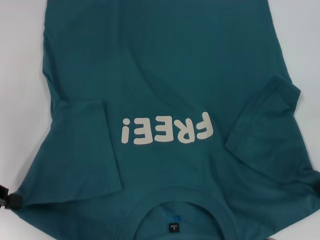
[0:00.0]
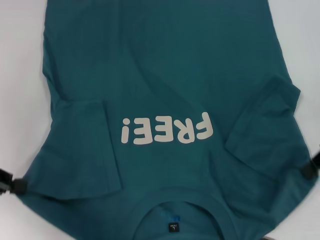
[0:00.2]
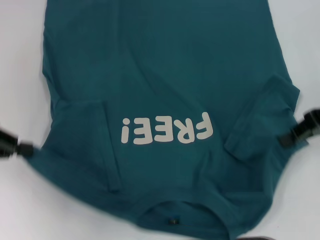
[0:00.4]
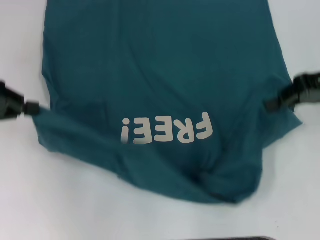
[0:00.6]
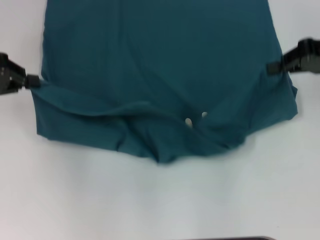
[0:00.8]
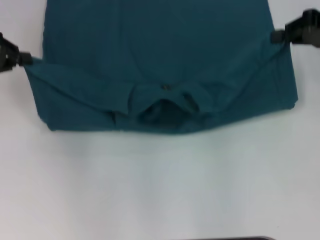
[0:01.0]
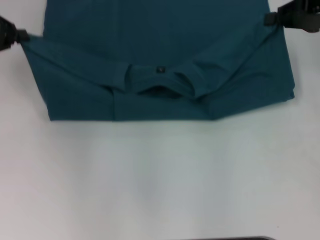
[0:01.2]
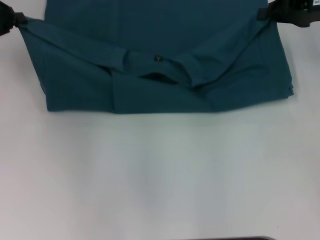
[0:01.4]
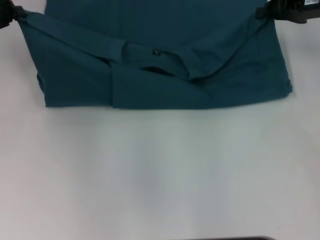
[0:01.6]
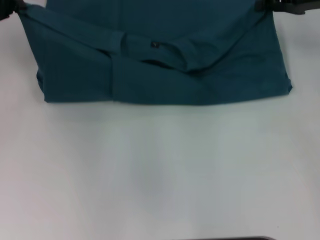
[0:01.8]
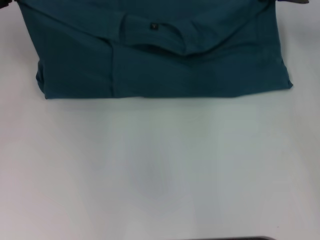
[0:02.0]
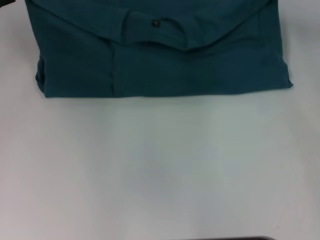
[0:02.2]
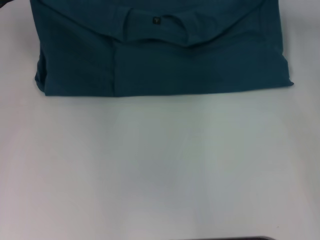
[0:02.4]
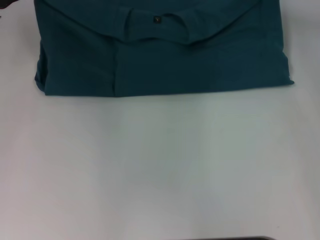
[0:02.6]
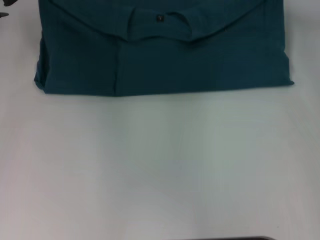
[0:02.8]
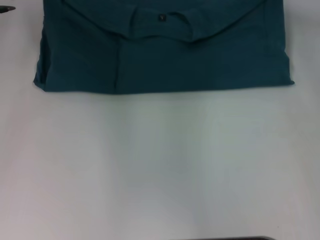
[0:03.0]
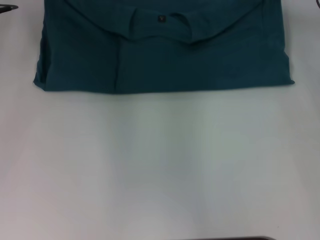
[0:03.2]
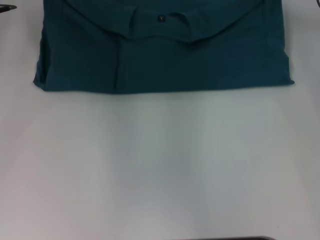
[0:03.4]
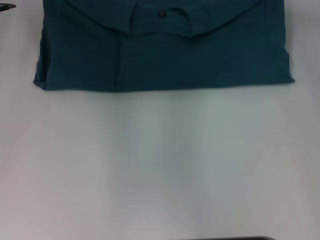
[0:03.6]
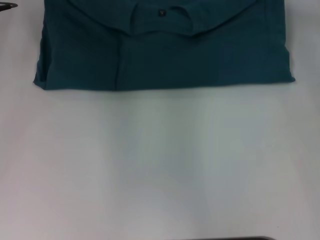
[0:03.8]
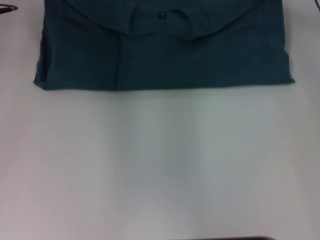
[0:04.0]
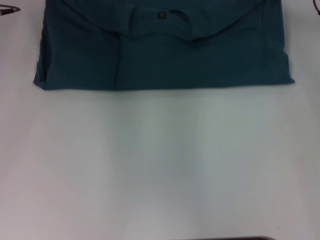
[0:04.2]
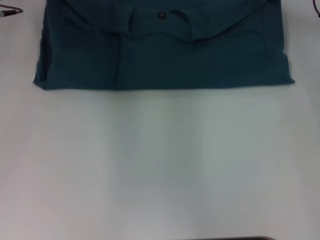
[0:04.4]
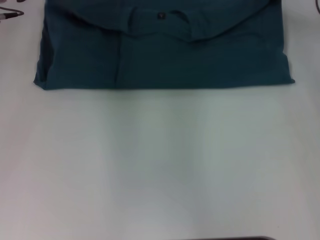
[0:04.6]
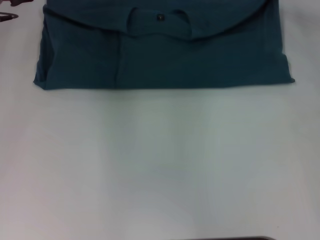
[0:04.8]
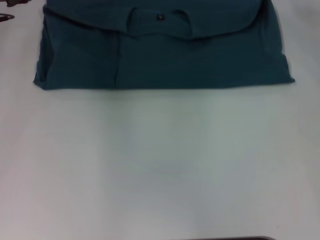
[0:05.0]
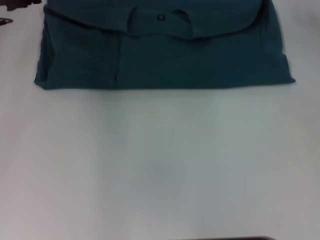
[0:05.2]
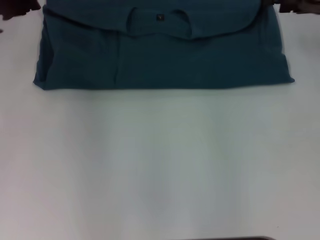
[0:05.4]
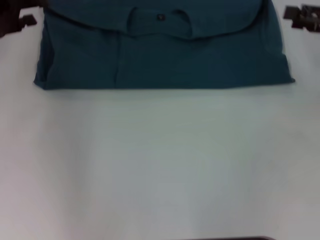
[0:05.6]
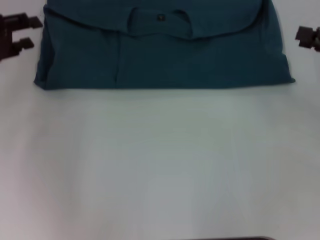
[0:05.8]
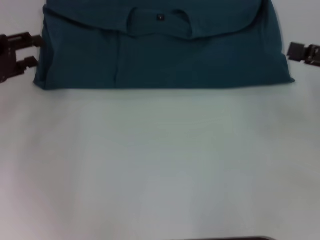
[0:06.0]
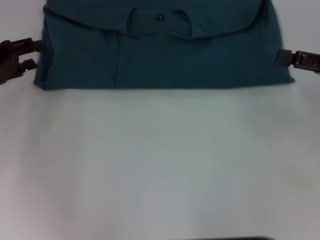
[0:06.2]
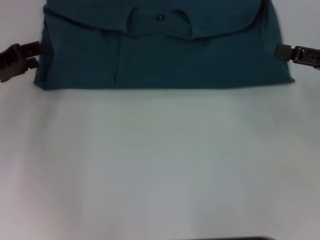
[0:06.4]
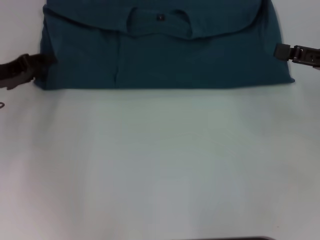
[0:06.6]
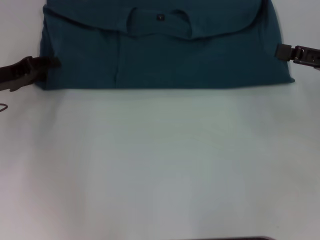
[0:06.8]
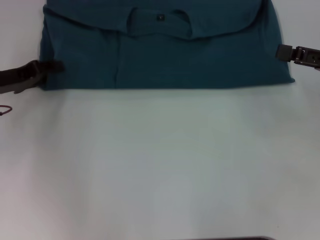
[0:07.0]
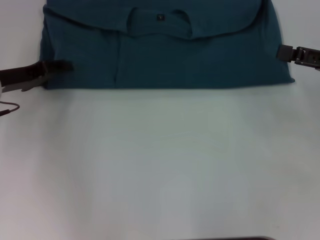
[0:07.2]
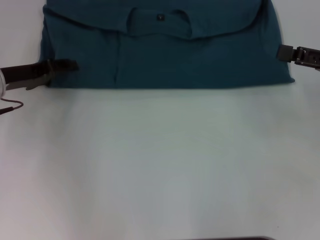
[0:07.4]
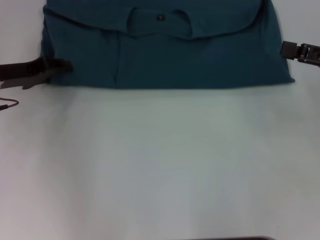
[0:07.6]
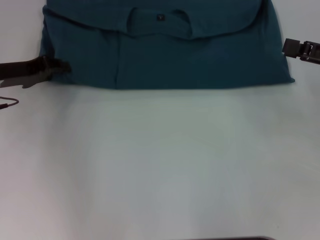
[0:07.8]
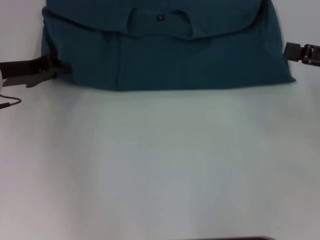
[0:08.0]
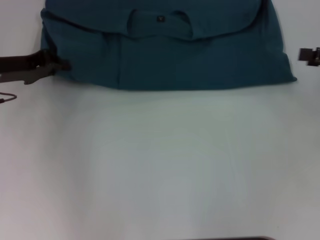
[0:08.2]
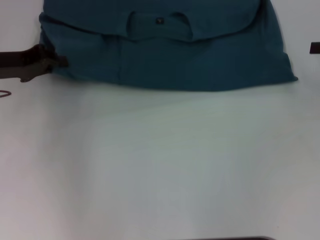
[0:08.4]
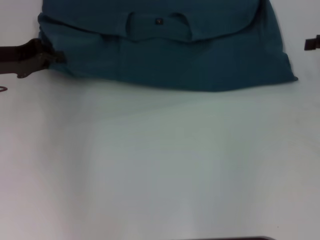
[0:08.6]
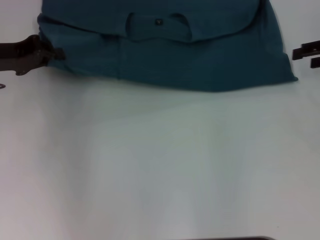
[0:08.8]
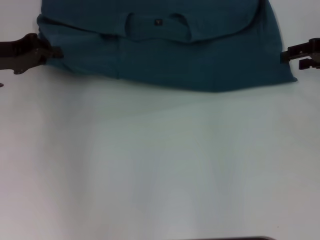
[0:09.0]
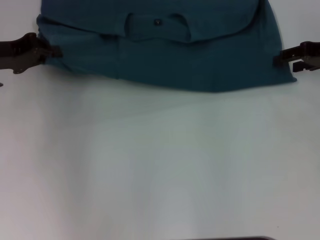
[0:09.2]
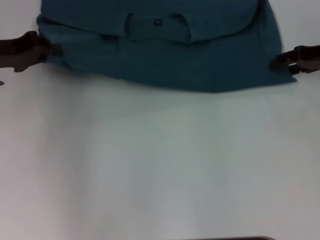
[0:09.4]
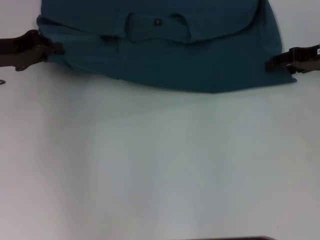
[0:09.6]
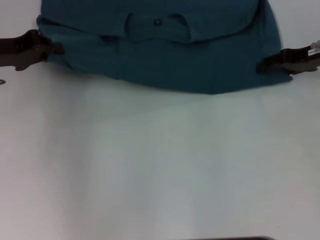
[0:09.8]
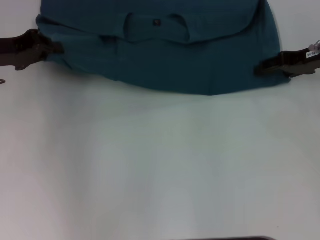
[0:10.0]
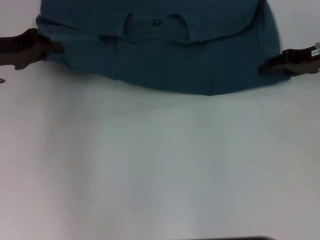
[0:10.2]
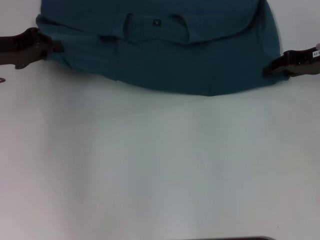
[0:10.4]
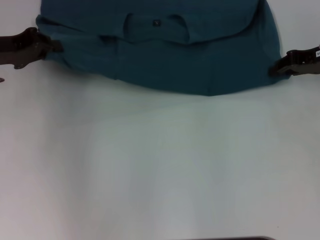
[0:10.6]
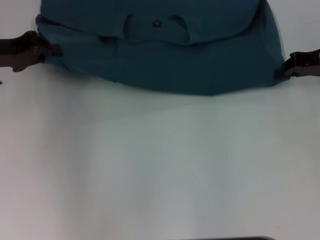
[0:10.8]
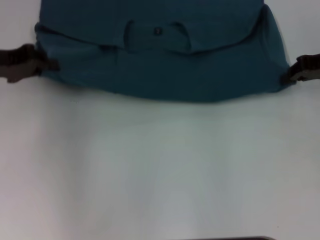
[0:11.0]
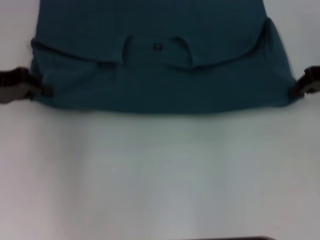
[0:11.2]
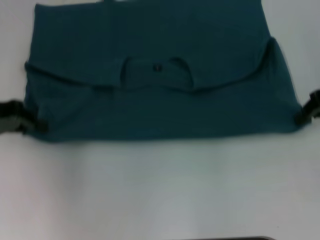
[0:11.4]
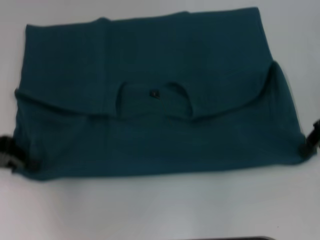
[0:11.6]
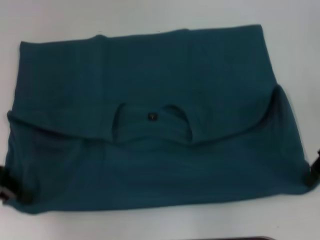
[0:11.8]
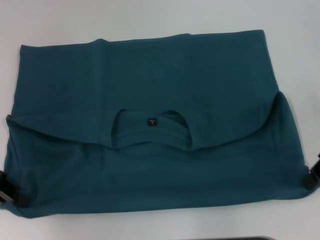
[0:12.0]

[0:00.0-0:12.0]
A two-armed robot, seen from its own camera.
Step, 0:00.0 to 0:04.8: Fold the clothes to the left.
Step, 0:00.0 to 0:04.8: Fold the clothes to the right.
Step, 0:05.0 to 0:11.8: Pull the clothes with your left hand.
Step, 0:05.0 to 0:11.8: Pull the clothes with your right hand.
0:00.0 to 0:01.6: The two grippers go some 15 cm forward.
0:01.6 to 0:03.0: The left gripper heads to the right and forward, covering about 10 cm.
0:03.0 to 0:04.4: The grippers move only a little.
0:04.4 to 0:06.0: The right gripper is displaced backward and to the right by approximately 20 cm, and opens up. Meanwhile the left gripper goes about 15 cm backward, to the left and downward, and opens up.
0:06.0 to 0:07.6: The left gripper ends up some 5 cm from where it was.
0:07.6 to 0:09.0: The left gripper closes; the right gripper heads forward, covering about 10 cm.
0:09.0 to 0:10.4: The grippers move only a little.
0:10.4 to 0:12.0: Both grippers travel together backward, approximately 10 cm. The right gripper closes up.

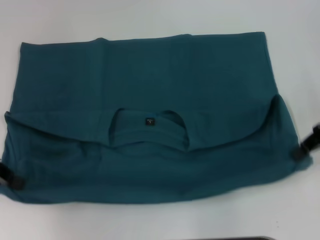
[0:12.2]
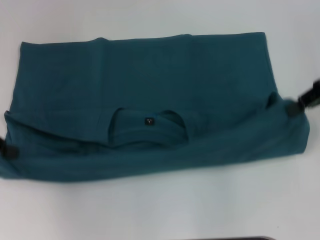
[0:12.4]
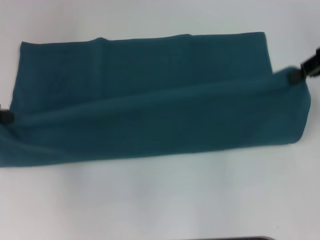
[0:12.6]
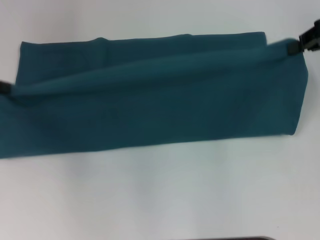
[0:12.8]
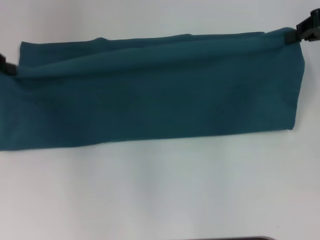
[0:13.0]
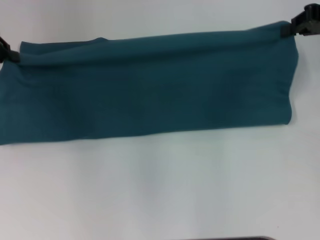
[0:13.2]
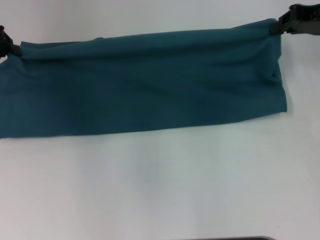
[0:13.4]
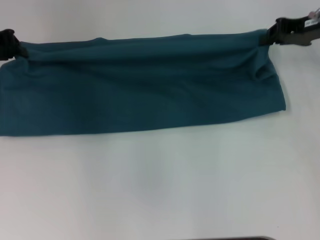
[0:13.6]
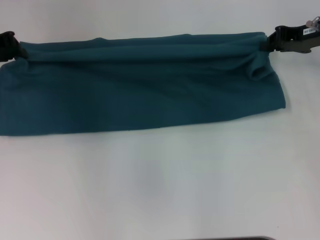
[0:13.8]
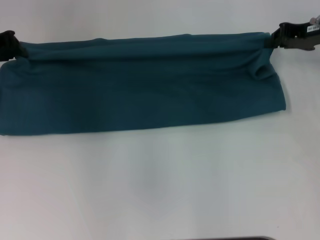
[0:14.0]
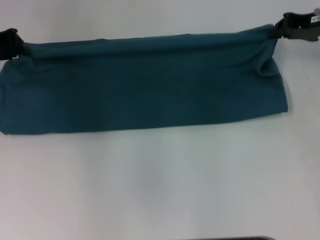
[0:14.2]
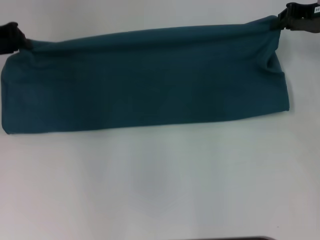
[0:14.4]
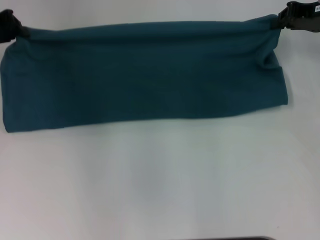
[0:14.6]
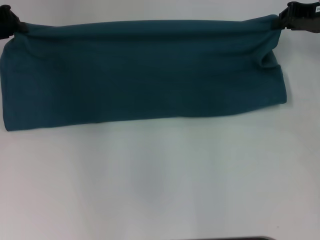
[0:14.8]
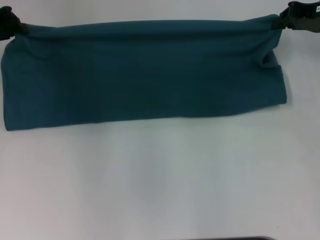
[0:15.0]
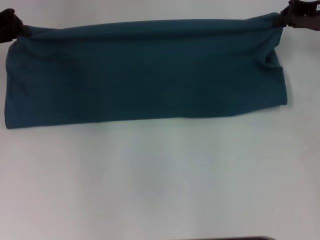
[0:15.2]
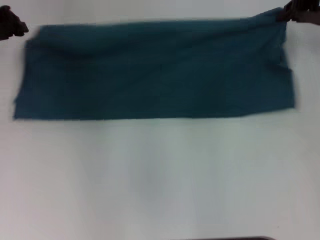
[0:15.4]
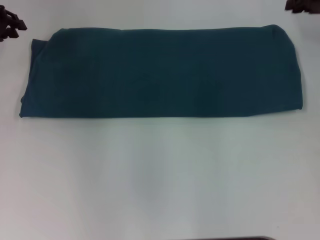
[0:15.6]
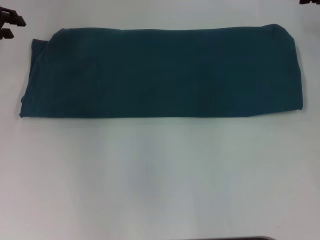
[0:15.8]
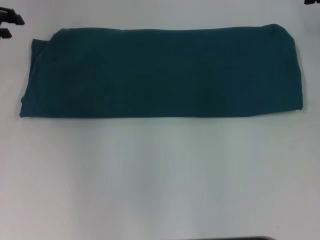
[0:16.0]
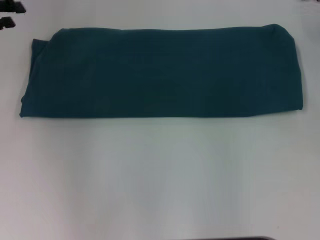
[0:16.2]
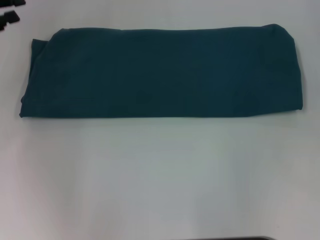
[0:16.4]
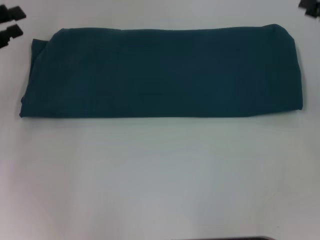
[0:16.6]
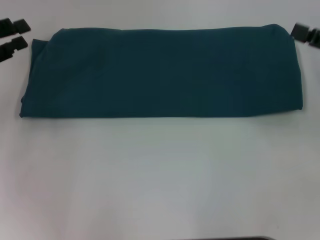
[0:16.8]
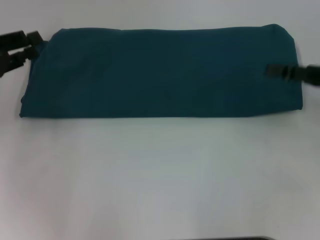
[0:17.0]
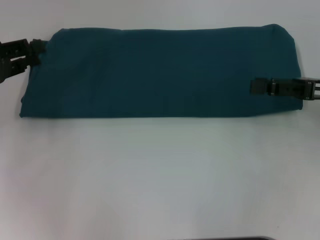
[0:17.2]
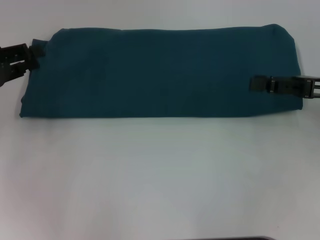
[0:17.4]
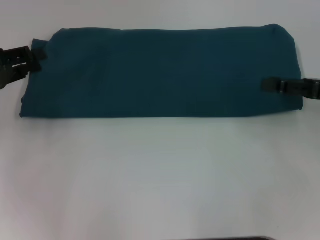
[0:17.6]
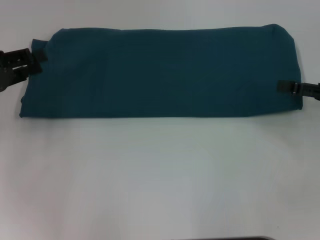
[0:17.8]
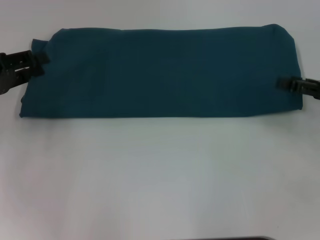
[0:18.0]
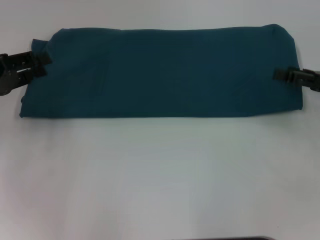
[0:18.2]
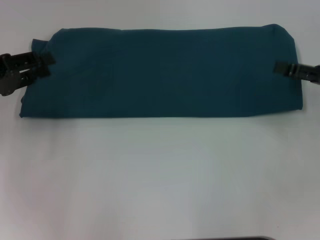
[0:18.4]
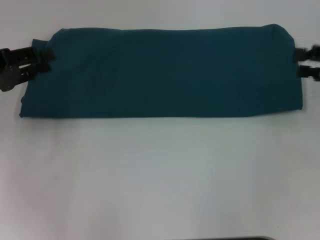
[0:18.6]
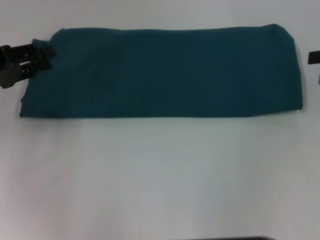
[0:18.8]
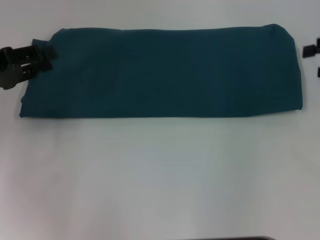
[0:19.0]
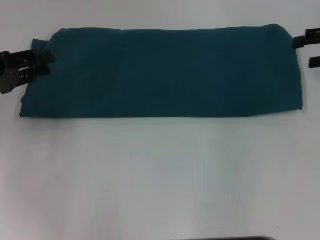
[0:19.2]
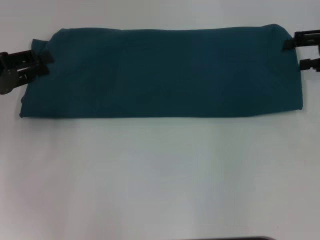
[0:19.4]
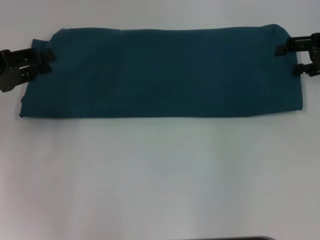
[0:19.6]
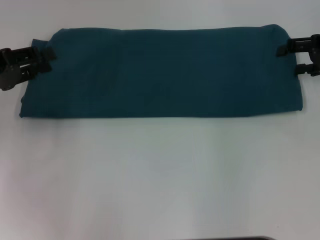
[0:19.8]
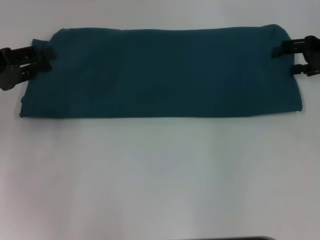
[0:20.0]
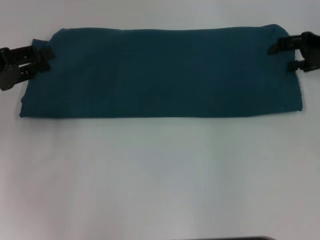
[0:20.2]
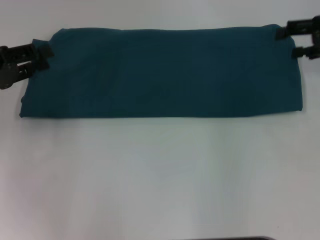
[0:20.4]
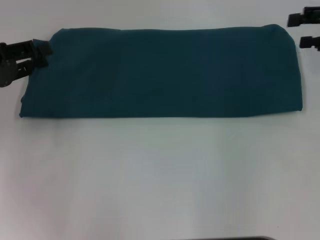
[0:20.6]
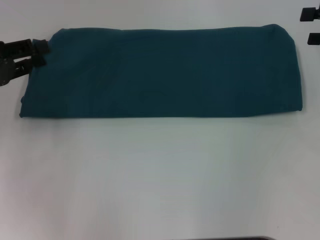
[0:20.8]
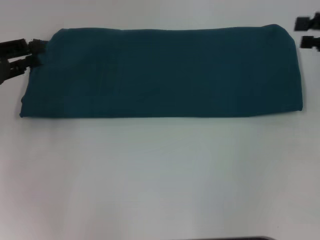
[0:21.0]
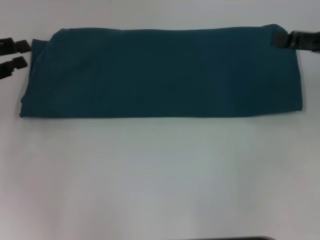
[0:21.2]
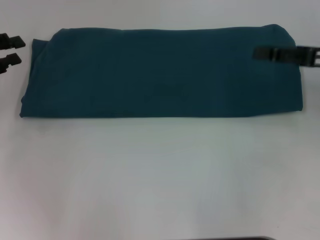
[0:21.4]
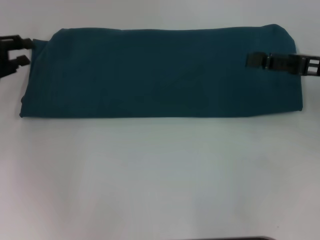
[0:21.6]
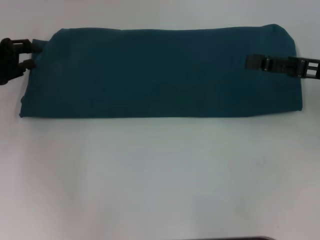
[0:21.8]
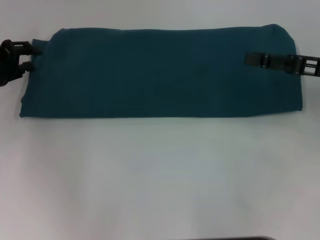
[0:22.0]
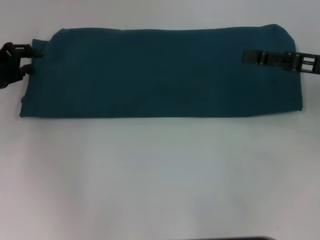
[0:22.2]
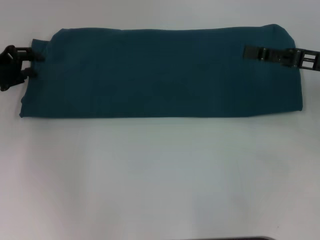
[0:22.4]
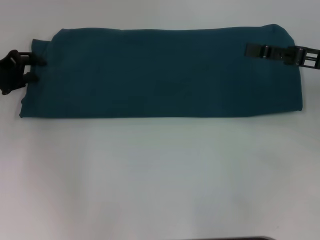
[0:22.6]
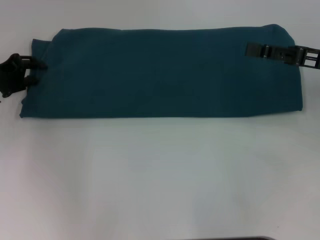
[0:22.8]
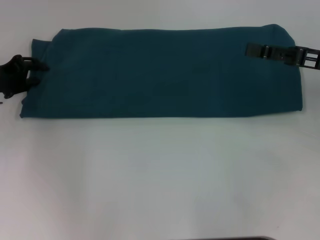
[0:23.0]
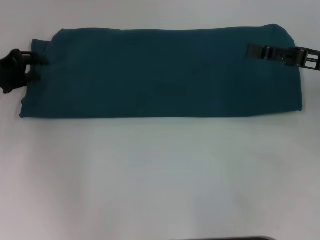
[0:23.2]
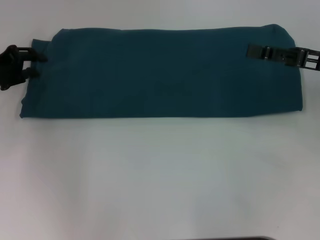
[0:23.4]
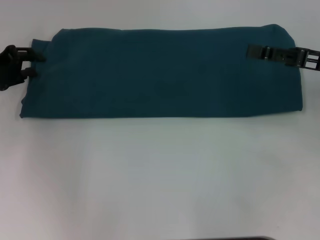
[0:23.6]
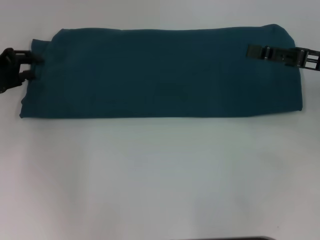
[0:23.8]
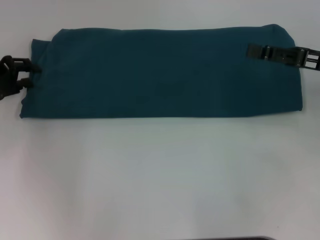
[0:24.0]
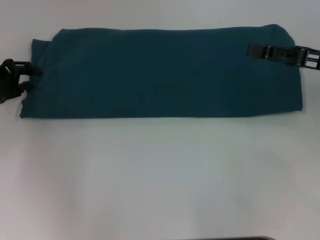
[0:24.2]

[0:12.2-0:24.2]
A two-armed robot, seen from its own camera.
Step, 0:12.2 to 0:15.4: Fold the clothes to the left.
Step, 0:12.2 to 0:15.4: Fold the clothes to the right.
0:12.2 to 0:13.8: The grippers both shift forward by about 10 cm.
0:13.8 to 0:15.2: The grippers make only small movements.
0:15.2 to 0:16.6: The right gripper goes some 10 cm backward and to the right, and opens up. The left gripper is displaced backward by roughly 10 cm, and opens up.
0:16.6 to 0:18.2: The right gripper shifts roughly 5 cm downward.
0:18.2 to 0:19.8: The right gripper goes approximately 10 cm forward.
0:19.8 to 0:21.2: The right gripper heads backward, covering roughly 5 cm.
0:21.2 to 0:22.6: The left gripper moves about 5 cm.
0:22.6 to 0:24.2: The grippers move only a little.
